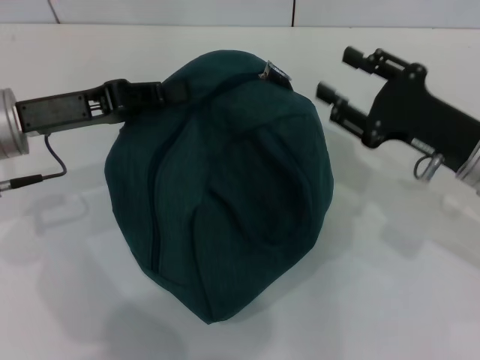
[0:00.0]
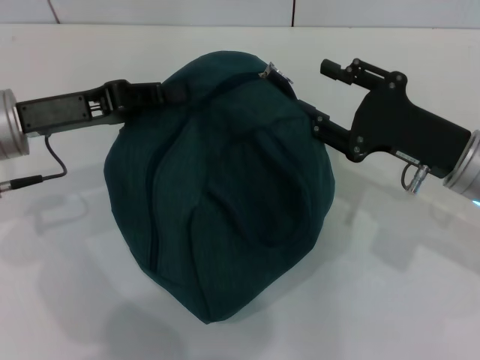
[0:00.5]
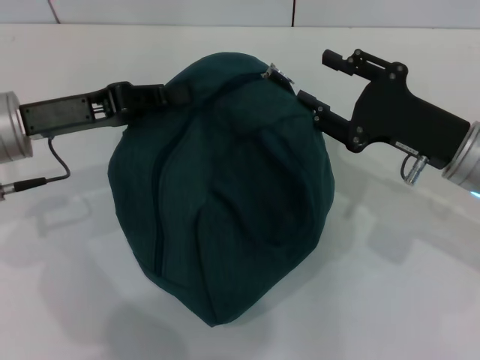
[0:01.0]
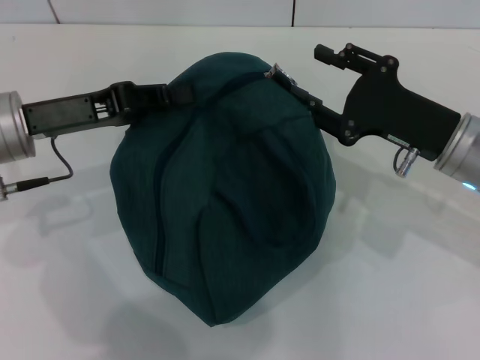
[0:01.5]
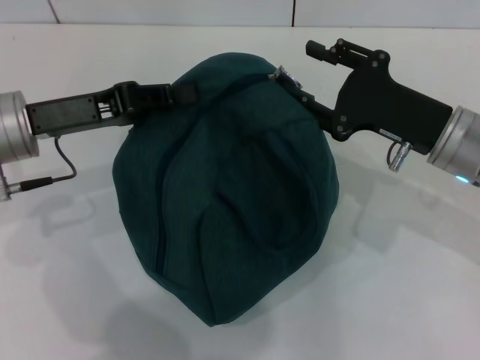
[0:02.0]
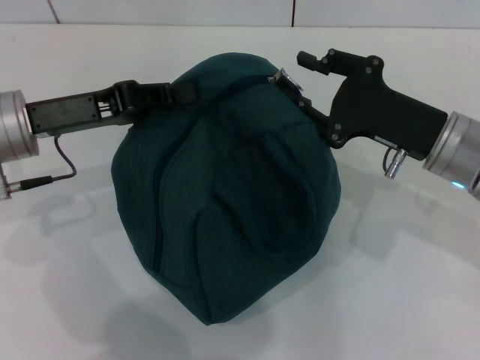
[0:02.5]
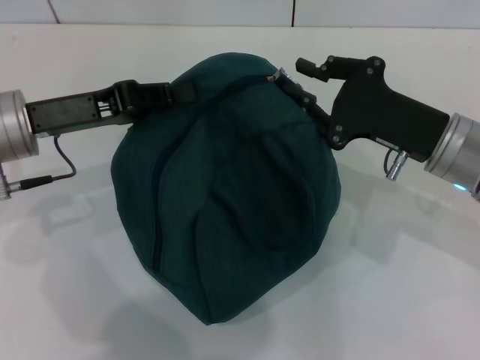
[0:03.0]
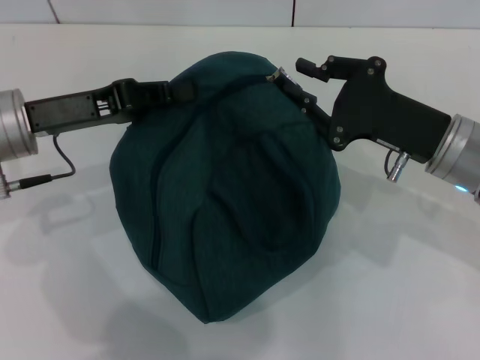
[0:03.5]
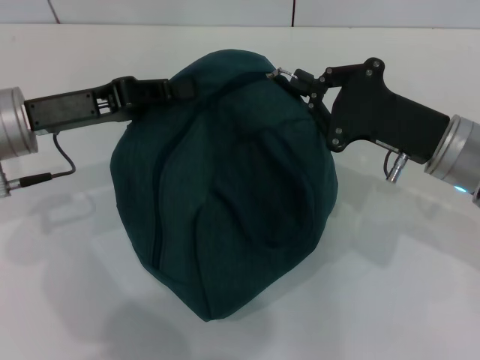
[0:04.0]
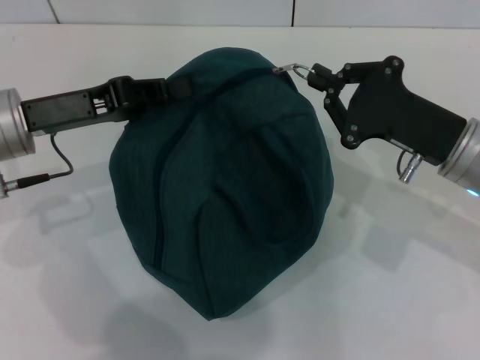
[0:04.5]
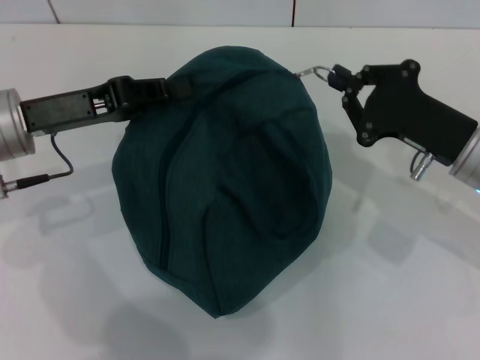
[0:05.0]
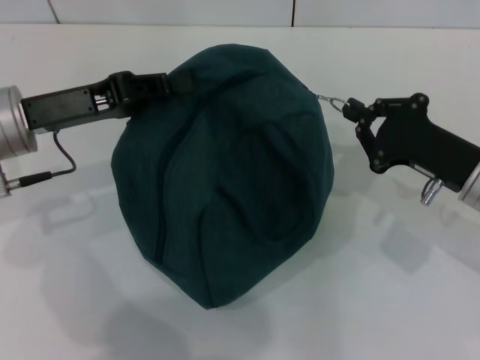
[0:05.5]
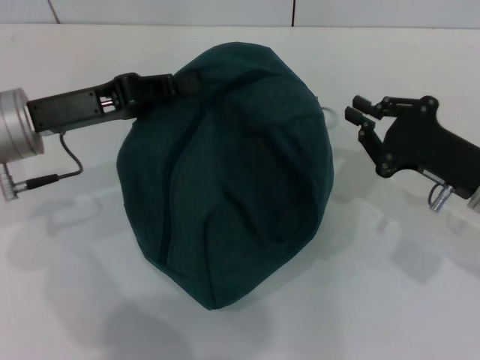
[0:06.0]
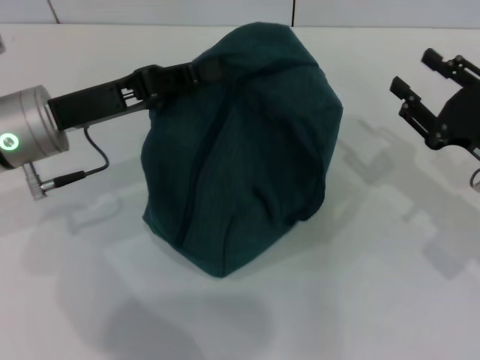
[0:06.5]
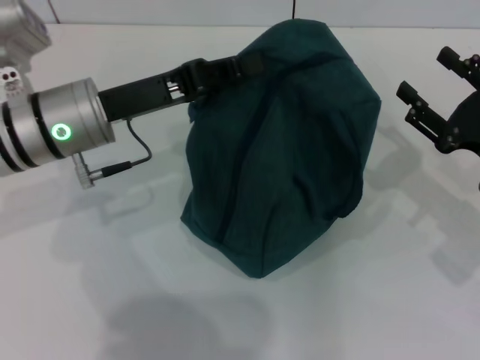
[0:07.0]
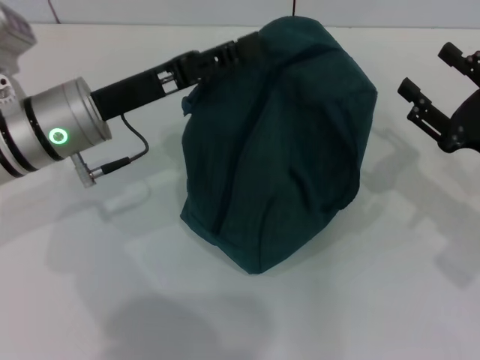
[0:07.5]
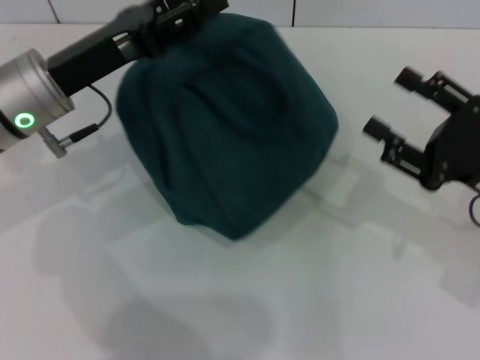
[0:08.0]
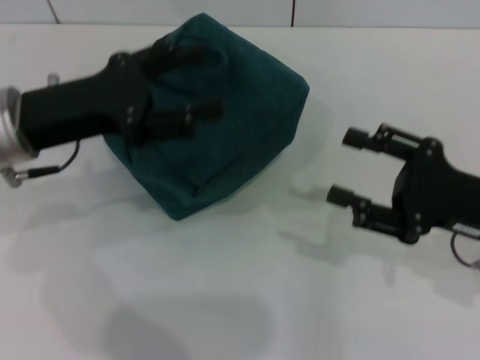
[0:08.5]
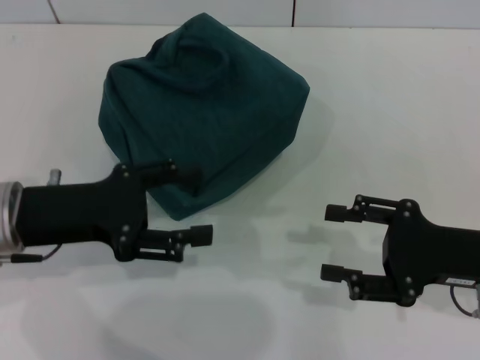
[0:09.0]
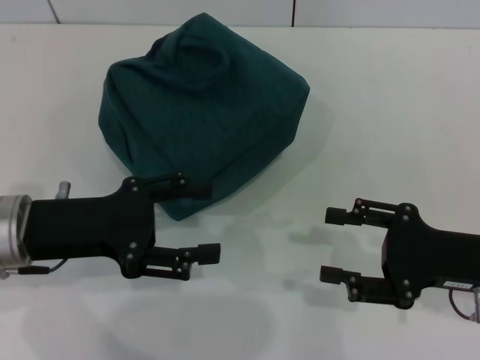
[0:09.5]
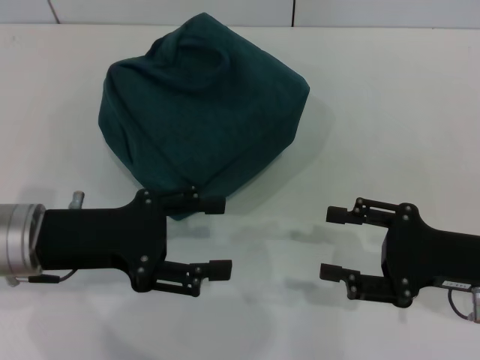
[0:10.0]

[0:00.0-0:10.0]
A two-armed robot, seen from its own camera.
Step, 0:00.0 to 0:05.5: Zip up the lunch bag with your right hand.
Step, 0:06.5 to 0:07.5: Hold the lunch bag with your left hand.
0:00.0 to 0:02.0: The grippers move only a little.
0:02.0 to 0:04.0: The right gripper closes.
0:04.0 to 0:06.0: The right gripper changes place by some 5 cm.
0:06.0 to 0:08.0: The left gripper opens its fingers; the right gripper opens its fingers.
0:08.0 to 0:10.0: The left gripper goes roughly 10 cm backward.
